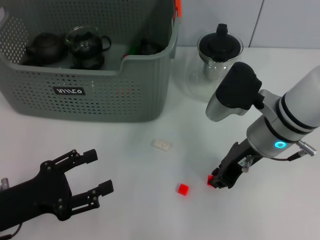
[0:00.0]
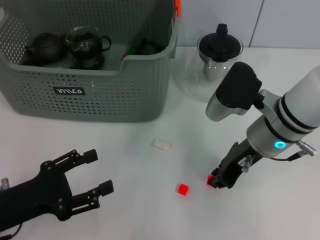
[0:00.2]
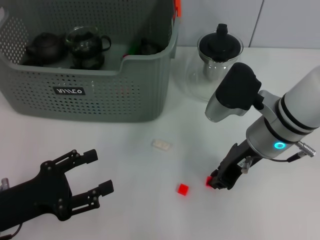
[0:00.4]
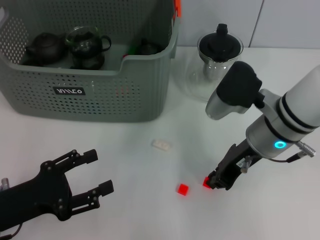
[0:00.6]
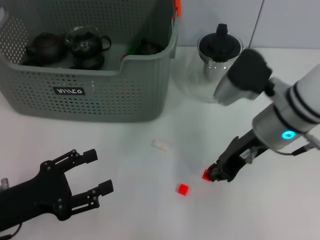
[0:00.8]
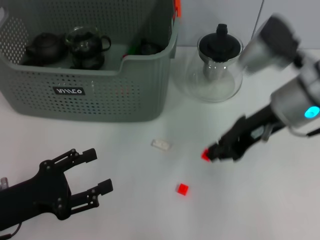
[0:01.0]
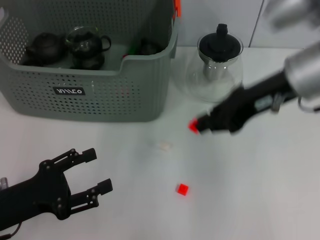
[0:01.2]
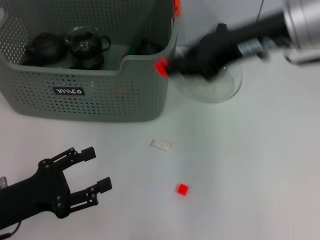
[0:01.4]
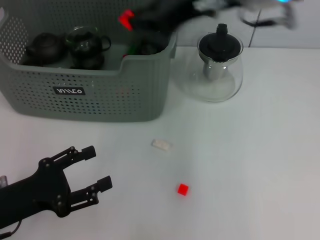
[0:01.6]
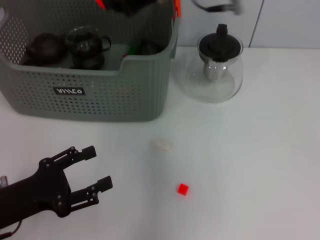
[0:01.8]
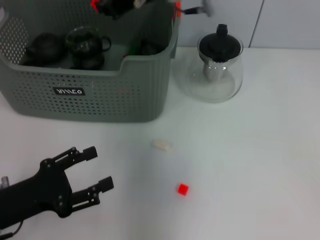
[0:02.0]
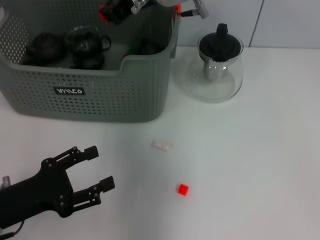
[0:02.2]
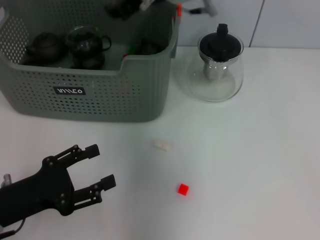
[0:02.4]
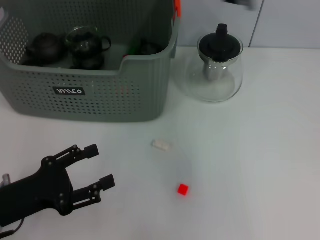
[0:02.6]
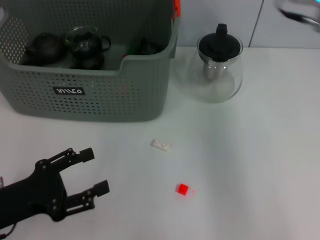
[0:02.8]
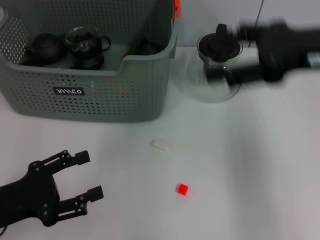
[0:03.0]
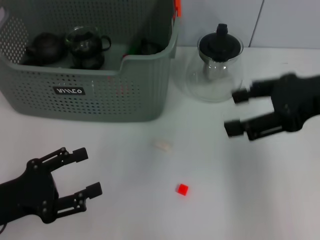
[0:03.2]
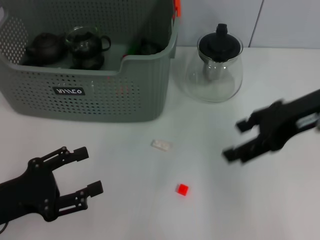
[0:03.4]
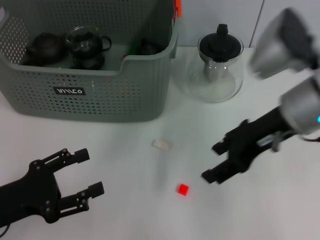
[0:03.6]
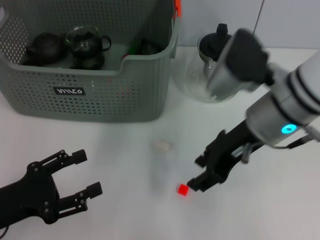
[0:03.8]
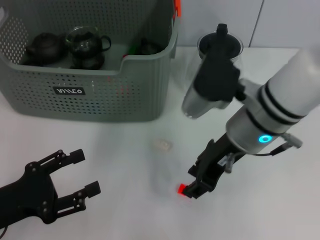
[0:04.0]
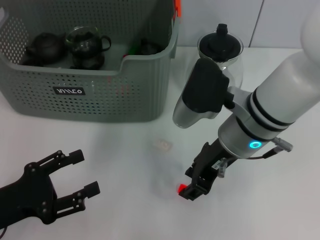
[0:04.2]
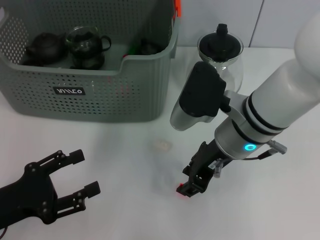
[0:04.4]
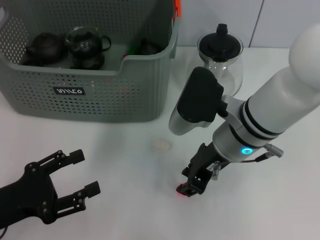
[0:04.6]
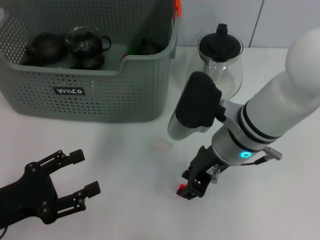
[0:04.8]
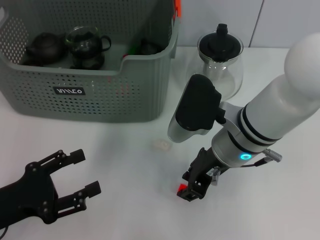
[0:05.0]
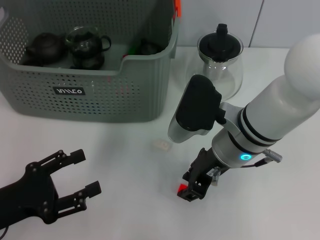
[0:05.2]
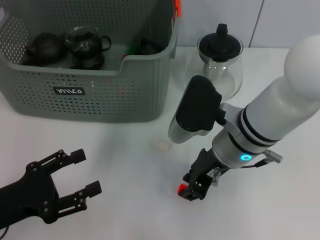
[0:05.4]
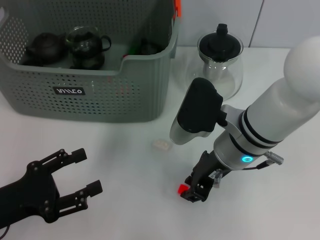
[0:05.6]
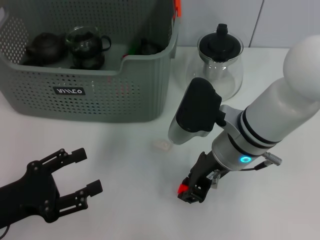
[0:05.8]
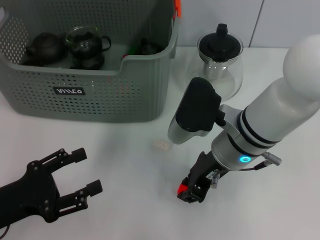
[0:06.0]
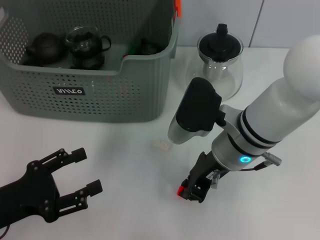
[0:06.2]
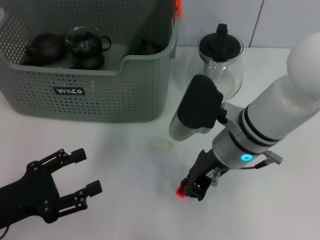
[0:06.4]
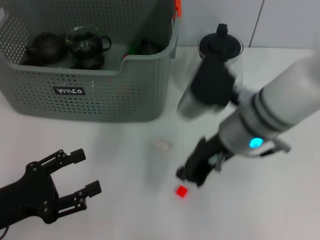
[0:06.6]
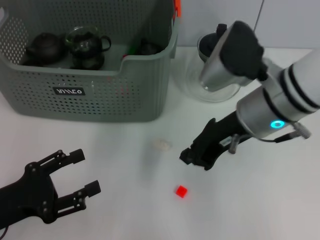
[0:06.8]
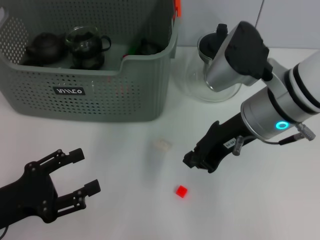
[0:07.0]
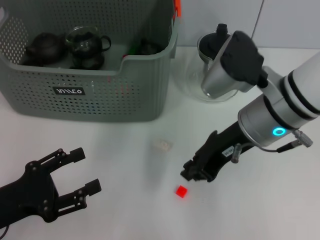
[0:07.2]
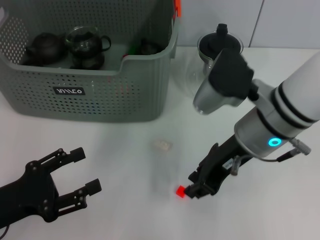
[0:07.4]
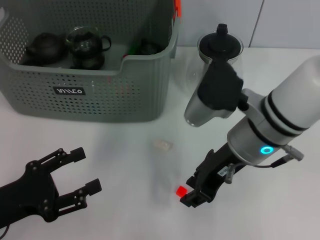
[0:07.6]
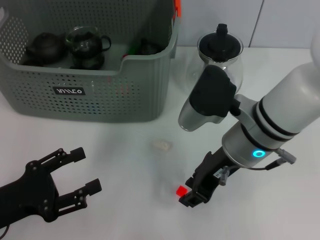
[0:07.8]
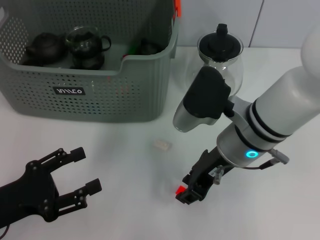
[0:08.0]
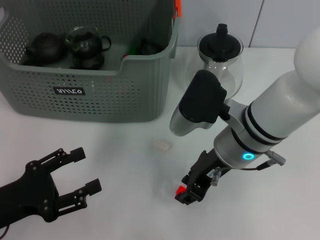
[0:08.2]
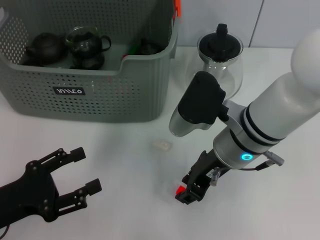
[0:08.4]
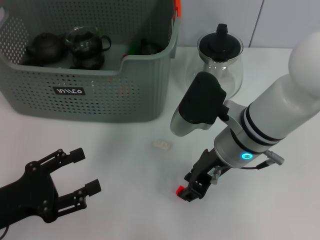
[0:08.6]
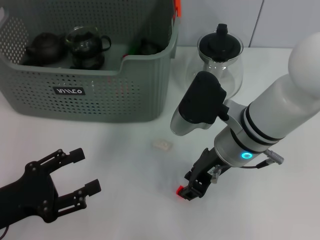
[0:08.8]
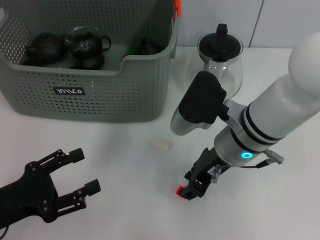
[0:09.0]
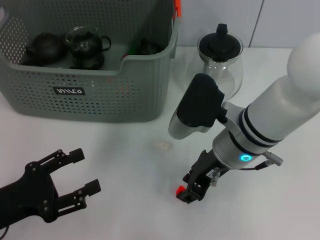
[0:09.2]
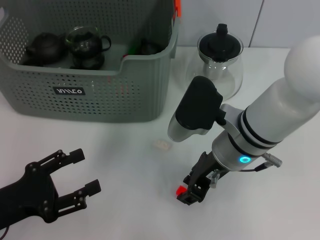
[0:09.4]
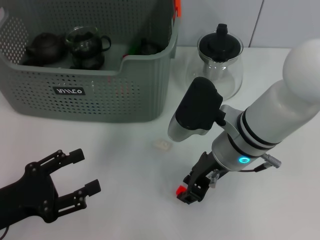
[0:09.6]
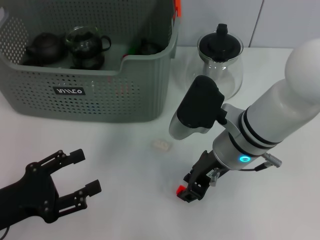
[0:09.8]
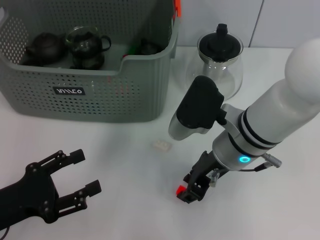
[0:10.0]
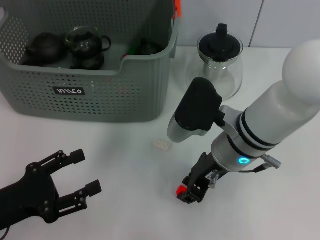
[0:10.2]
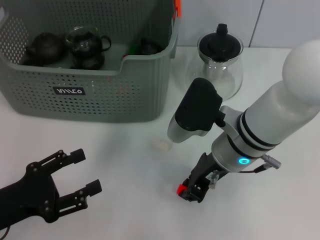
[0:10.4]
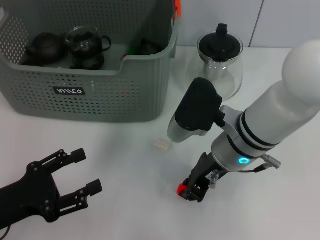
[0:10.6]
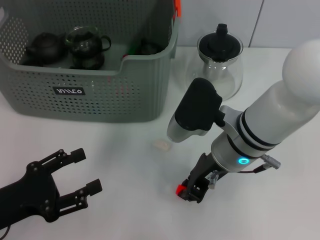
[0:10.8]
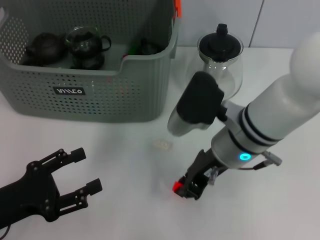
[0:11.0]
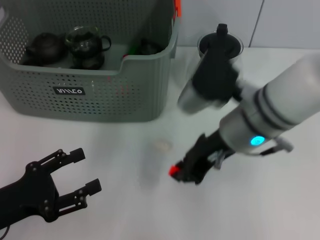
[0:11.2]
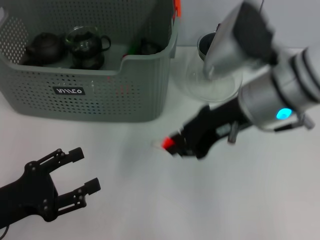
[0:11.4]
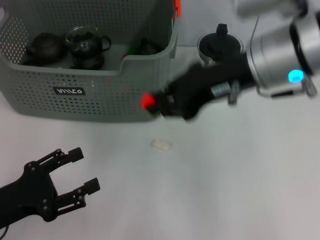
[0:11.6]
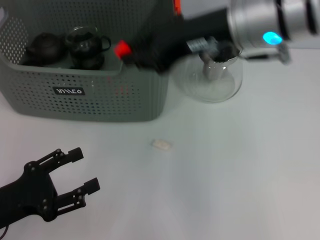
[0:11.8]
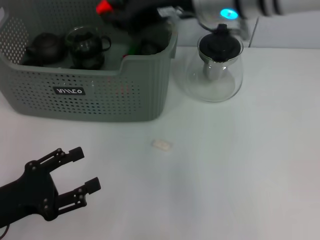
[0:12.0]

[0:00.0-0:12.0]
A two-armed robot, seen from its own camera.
Task of the whole recording: pick up the teacup on the table and place it into the storage bin, pick up the block on the table and place it into the storage bin.
Step, 0:00.2 to 0:02.6: Place the orange block in the storage box with right gripper.
Step, 0:02.8 to 0:10.8: Grasp the orange block with right gripper.
0:00.0 to 0:01.6: The right gripper shifts about 20 cm upward.
0:01.6 to 0:03.0: The right gripper travels to the right and backward by some 15 cm, and opens its fingers.
0:03.0 to 0:04.4: The right gripper moves to the left and downward, some 20 cm.
0:04.4 to 0:06.0: The grippers move only a little.
0:07.6 to 0:09.0: The grippers make only small movements.
0:09.0 to 0:10.4: The two grippers keep their place.
0:10.4 to 0:12.0: The right gripper heads upward, covering approximately 15 cm.

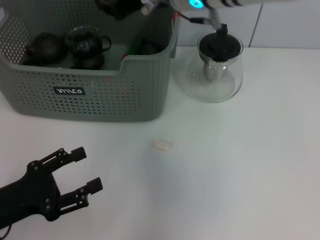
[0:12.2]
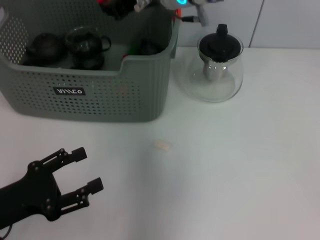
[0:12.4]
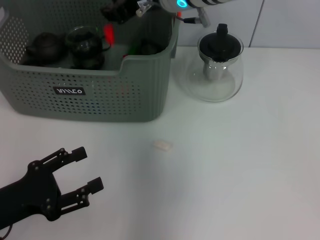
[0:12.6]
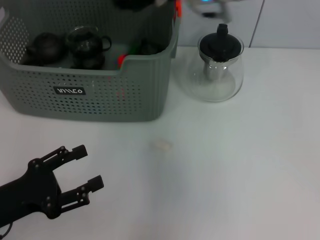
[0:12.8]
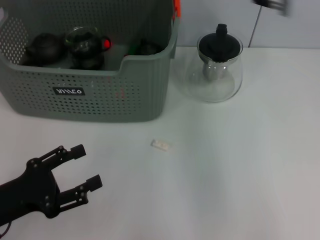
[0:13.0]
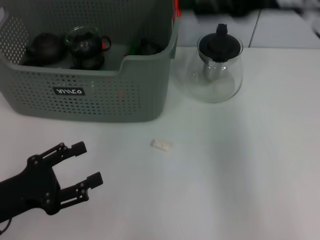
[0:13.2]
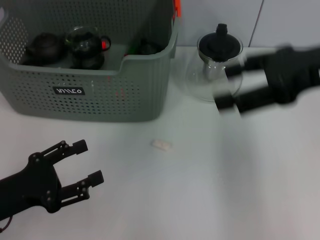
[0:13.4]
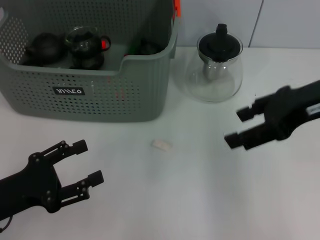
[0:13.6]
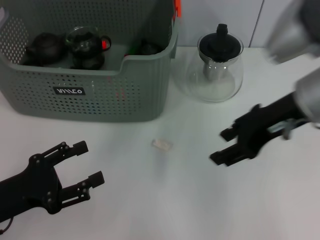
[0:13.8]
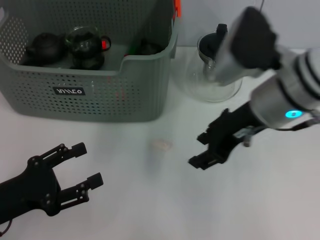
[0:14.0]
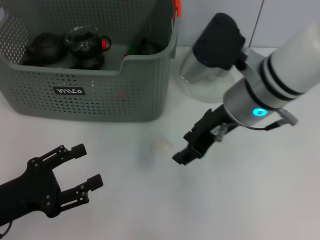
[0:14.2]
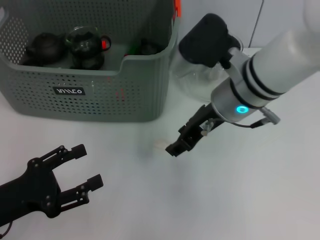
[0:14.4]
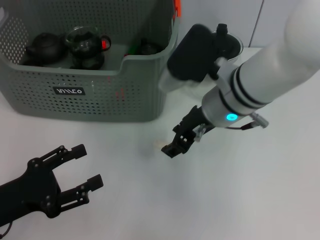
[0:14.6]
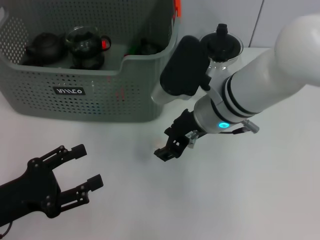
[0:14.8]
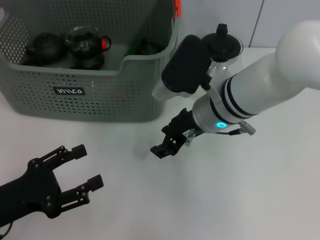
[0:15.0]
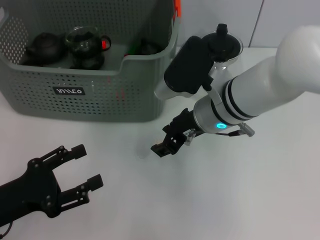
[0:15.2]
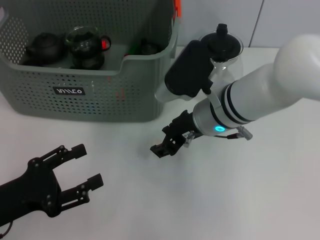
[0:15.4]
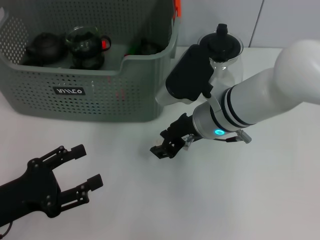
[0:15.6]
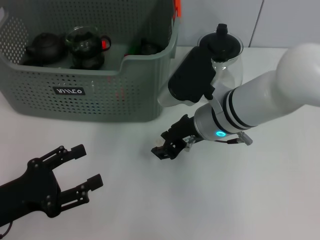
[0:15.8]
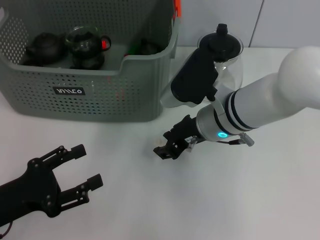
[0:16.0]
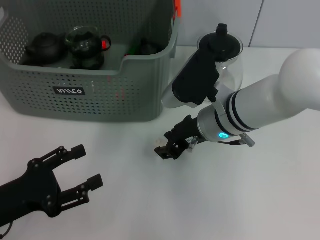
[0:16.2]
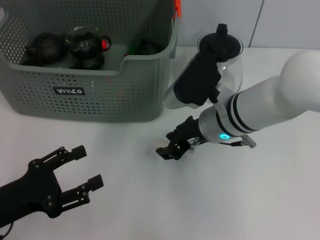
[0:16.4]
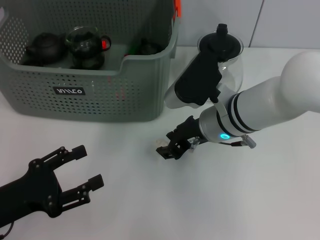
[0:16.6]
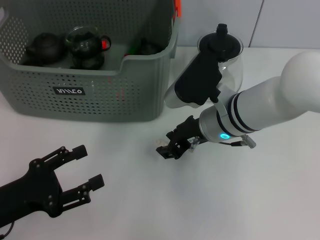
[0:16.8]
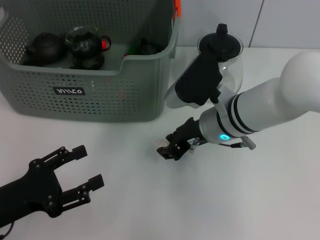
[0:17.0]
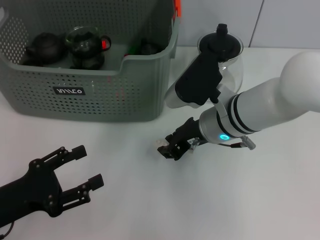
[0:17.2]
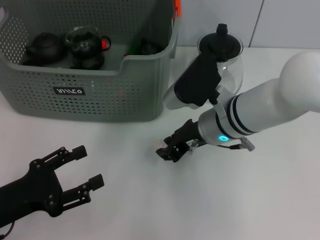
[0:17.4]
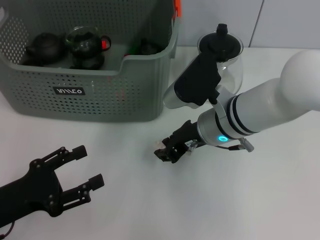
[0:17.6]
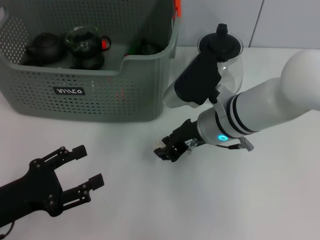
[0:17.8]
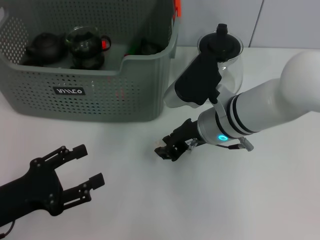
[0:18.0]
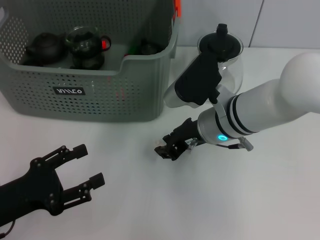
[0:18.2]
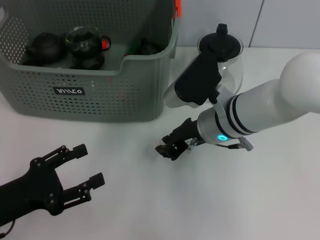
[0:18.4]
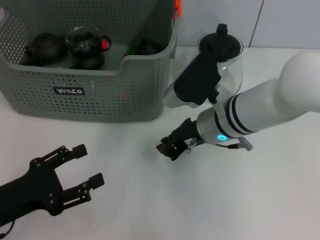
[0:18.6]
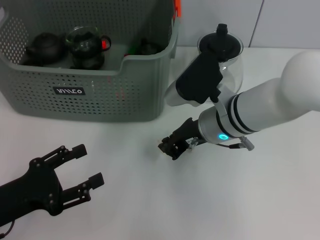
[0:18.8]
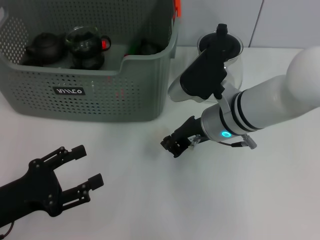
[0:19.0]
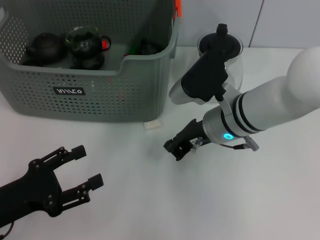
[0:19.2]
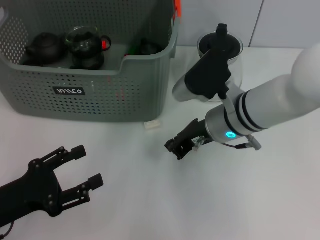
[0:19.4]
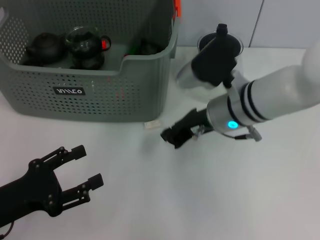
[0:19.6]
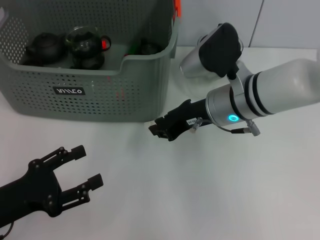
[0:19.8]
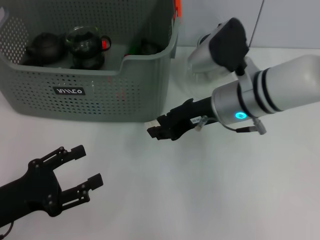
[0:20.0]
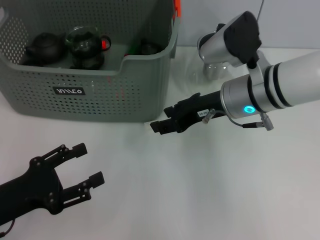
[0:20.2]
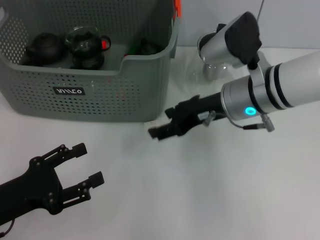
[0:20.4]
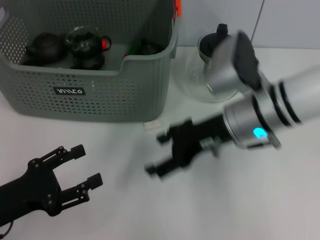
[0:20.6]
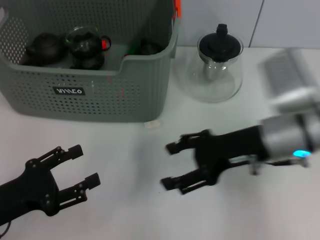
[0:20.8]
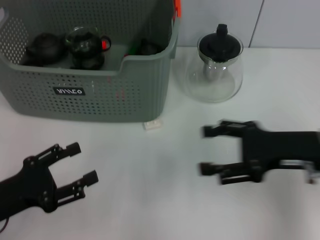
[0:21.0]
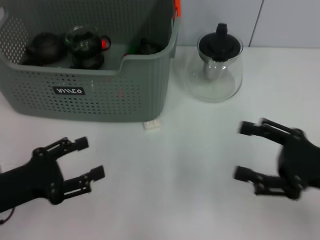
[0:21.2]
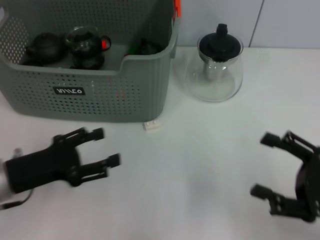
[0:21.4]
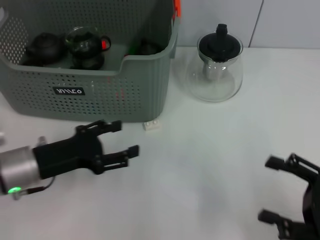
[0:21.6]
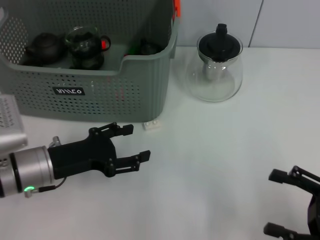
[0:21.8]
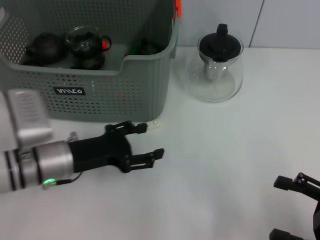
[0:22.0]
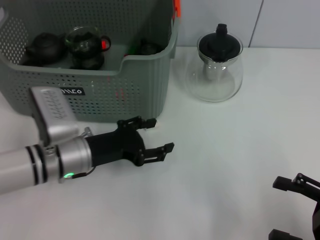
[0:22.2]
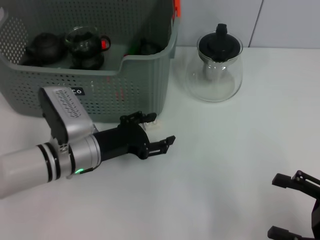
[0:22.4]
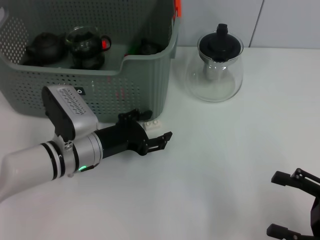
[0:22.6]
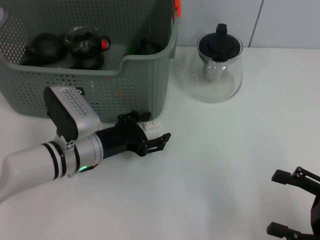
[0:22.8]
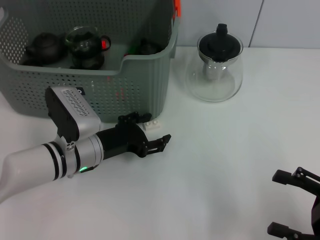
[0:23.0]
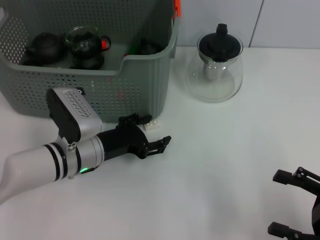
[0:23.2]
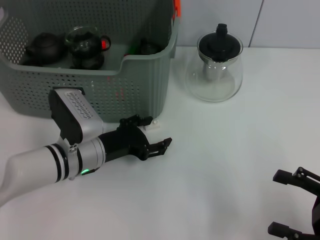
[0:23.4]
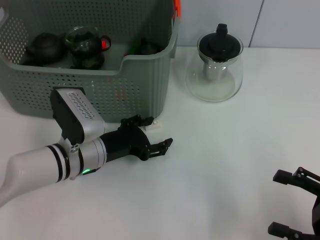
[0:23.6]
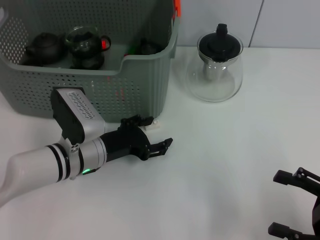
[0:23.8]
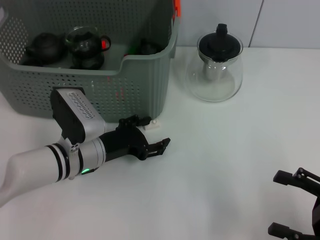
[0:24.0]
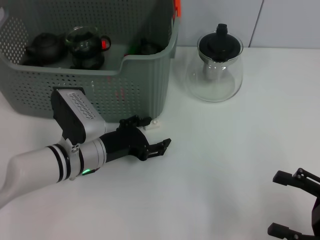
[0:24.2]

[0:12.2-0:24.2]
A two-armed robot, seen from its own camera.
Task of the whole recording: pick up the teacup on the table and place it into the storage bin, pick up the block on the table and place it into the storage bin.
0:12.2 to 0:13.8: The right gripper travels to the right and backward by roughly 15 cm, and opens its fingers.
0:13.8 to 0:15.2: The right gripper heads to the left and downward, covering some 15 cm.
0:15.2 to 0:16.6: The grippers make only small movements.
0:16.6 to 0:18.2: Both grippers stay put.
0:18.2 to 0:19.8: The grippers stay close to where they were, moving slightly.
0:19.8 to 0:21.2: The right gripper shifts about 20 cm to the right and backward, and opens up.
0:21.2 to 0:22.6: The right gripper shifts about 5 cm backward, while the left gripper heads to the right and forward, covering roughly 15 cm.
0:22.6 to 0:24.2: Both grippers stay about where they are.
